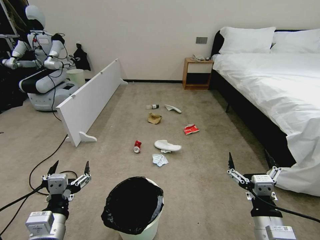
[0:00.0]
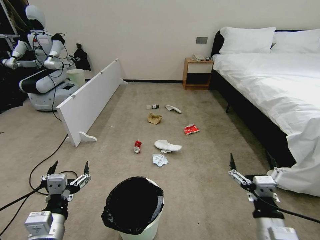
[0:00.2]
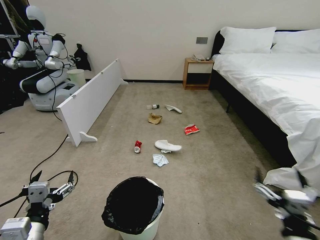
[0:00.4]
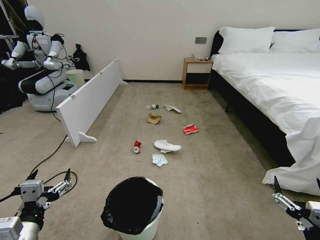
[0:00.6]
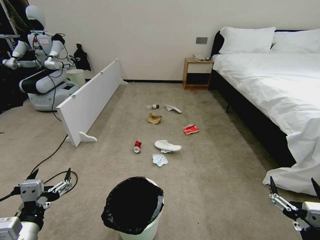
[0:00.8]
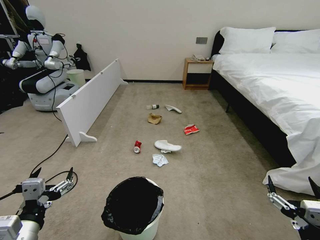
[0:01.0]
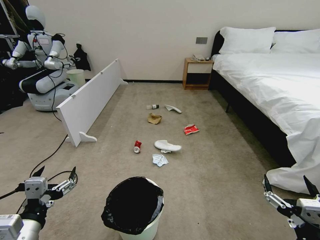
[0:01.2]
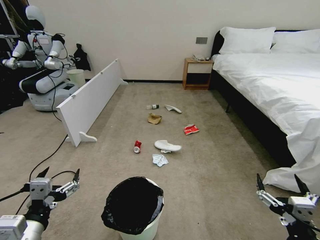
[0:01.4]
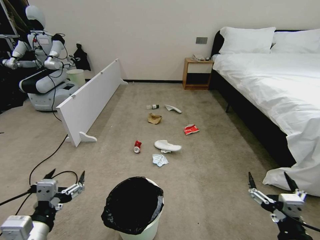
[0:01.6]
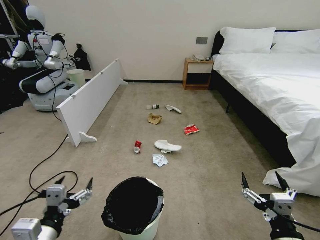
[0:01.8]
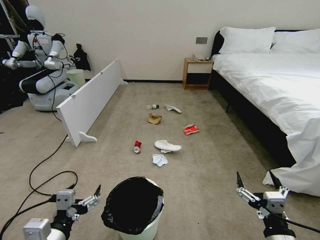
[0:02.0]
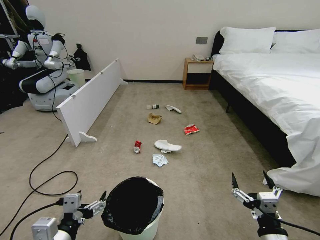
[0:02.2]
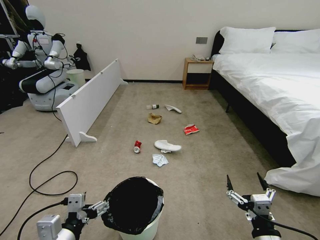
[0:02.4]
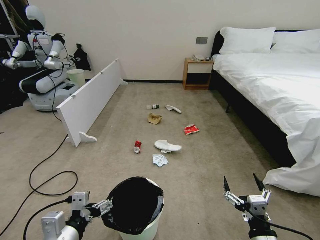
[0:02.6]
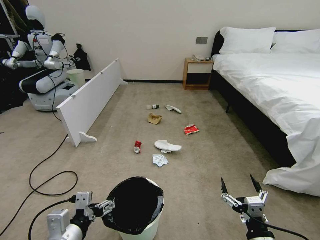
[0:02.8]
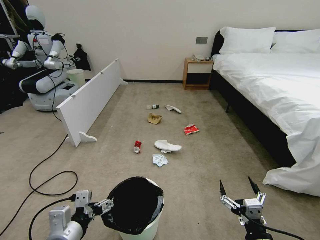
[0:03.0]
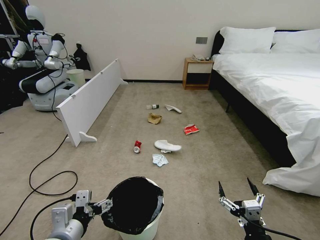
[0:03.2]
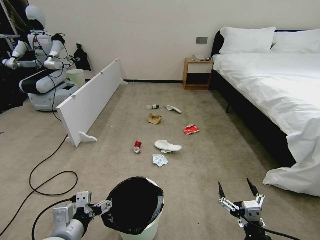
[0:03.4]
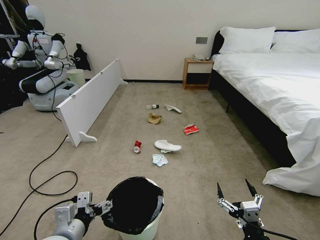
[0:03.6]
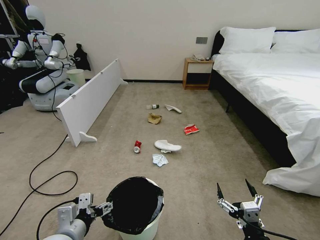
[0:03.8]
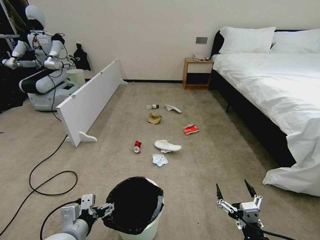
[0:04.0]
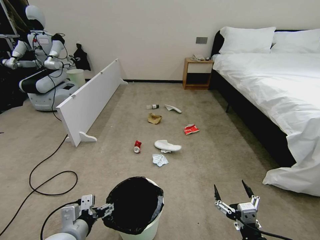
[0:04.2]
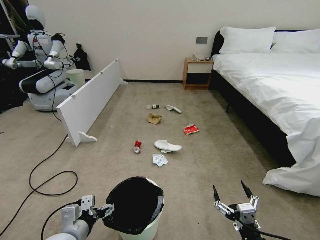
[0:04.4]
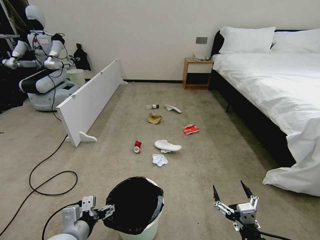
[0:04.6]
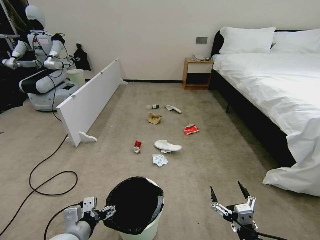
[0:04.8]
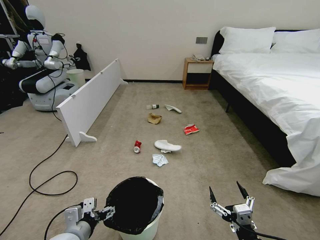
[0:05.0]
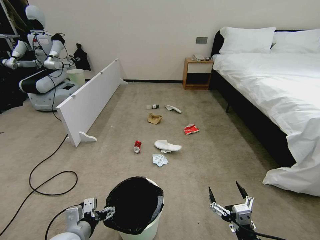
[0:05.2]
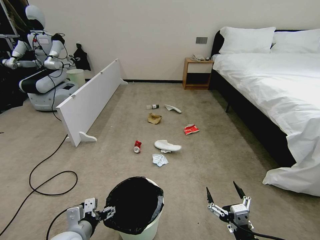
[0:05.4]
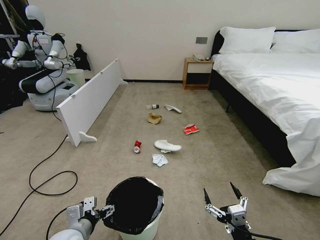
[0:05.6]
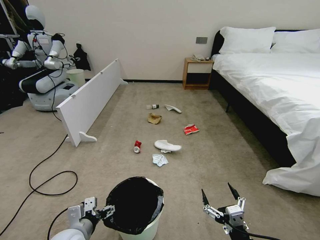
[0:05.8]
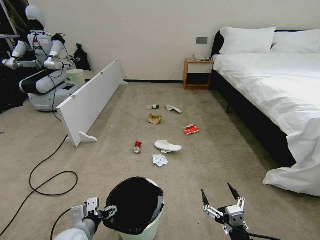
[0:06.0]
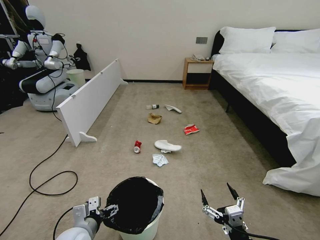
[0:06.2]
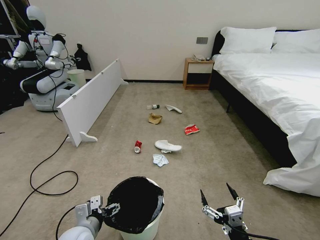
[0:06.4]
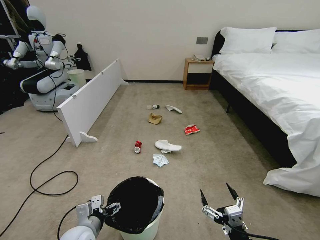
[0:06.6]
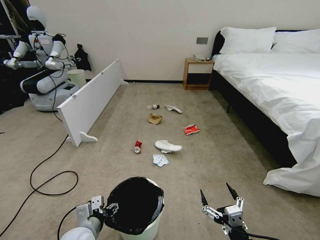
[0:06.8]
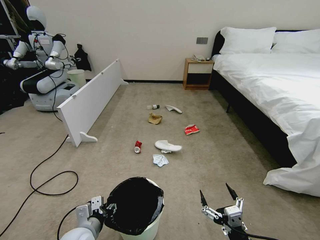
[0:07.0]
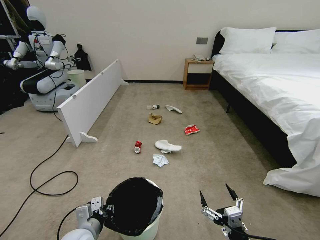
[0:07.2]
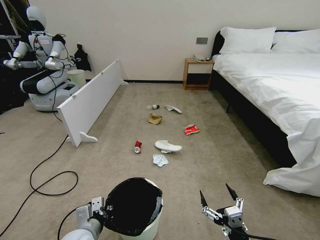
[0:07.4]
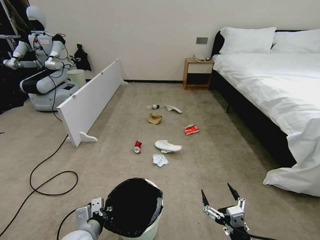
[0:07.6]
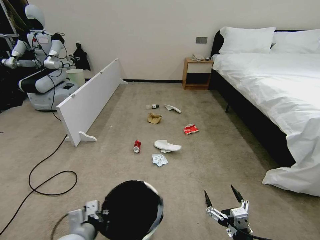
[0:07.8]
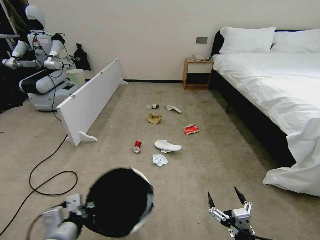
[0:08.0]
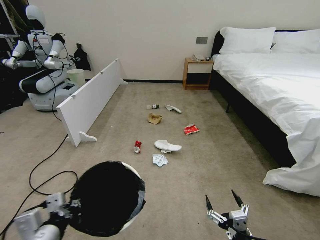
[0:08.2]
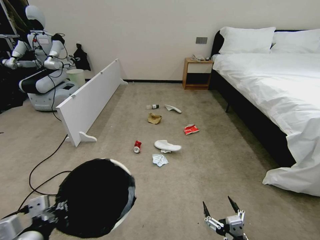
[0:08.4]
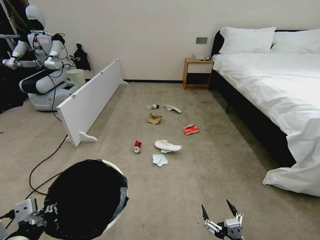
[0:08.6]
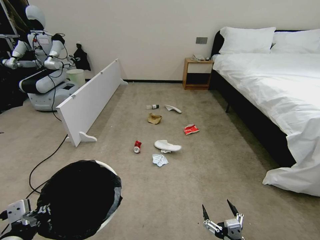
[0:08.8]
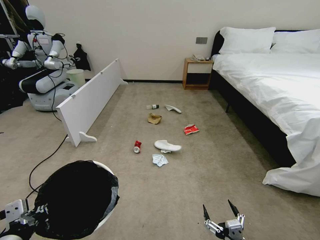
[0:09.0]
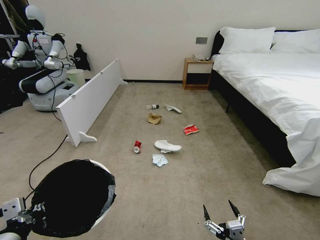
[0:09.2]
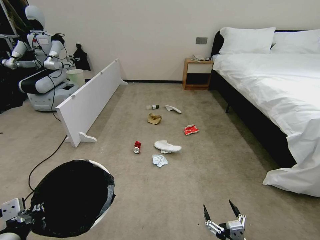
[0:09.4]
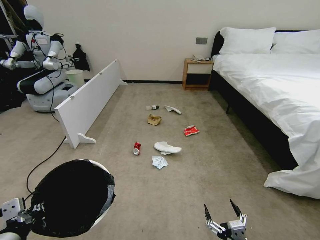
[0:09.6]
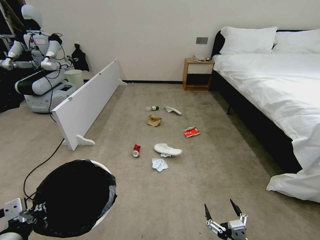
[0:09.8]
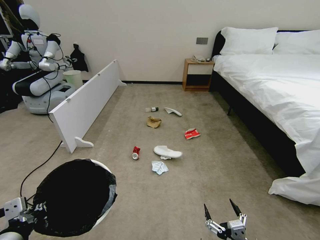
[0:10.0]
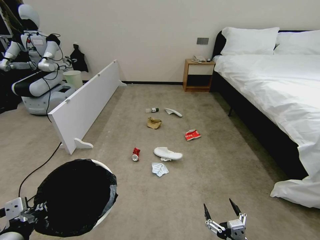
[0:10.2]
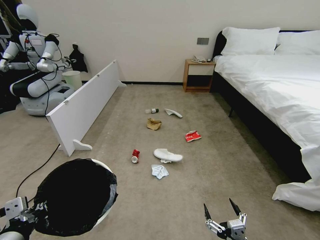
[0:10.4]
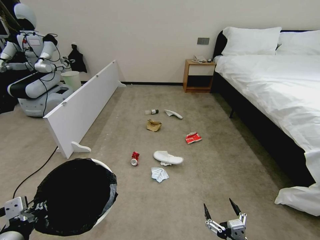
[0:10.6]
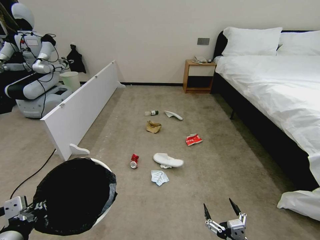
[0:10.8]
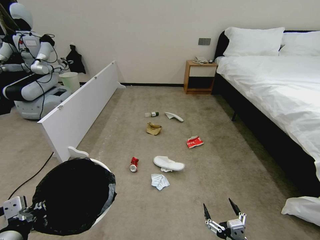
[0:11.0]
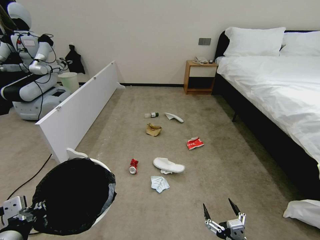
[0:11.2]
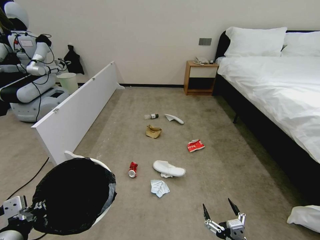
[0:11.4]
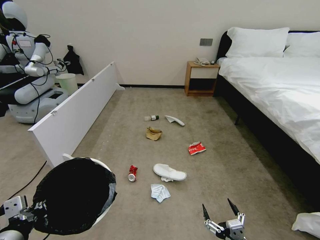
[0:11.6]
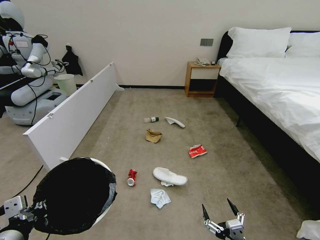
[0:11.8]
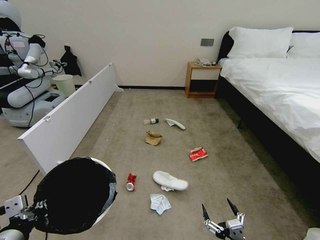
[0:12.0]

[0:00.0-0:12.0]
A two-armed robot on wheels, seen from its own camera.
Task of the whole recording: Pick up the trash bin, then pick up the garbage from the floor and place it into the trash bin.
0:01.6 to 0:03.0: The right gripper heads downward, covering approximately 5 cm; the left gripper moves to the right, roughly 5 cm.
0:03.0 to 0:04.4: The left gripper goes some 5 cm downward.
0:04.4 to 0:06.0: The grippers stay close to where they were, moving slightly.
0:06.0 to 0:07.6: The left gripper closes up.
0:07.6 to 0:09.0: The left gripper shifts some 20 cm upward, backward and to the left.
0:09.0 to 0:10.4: The two grippers keep their place.

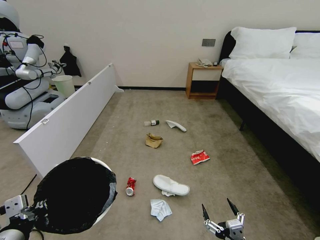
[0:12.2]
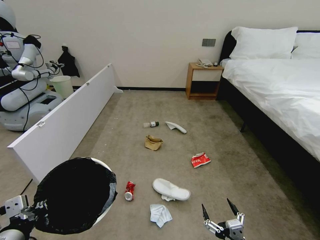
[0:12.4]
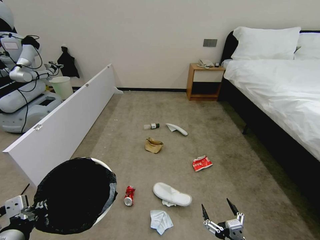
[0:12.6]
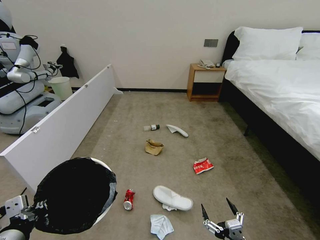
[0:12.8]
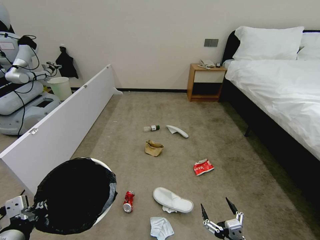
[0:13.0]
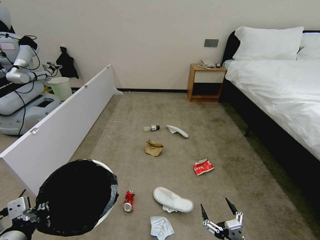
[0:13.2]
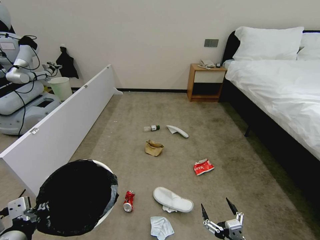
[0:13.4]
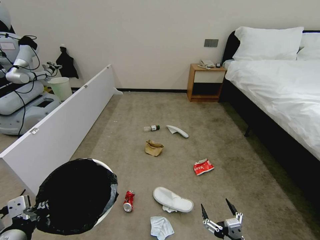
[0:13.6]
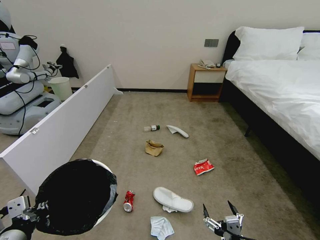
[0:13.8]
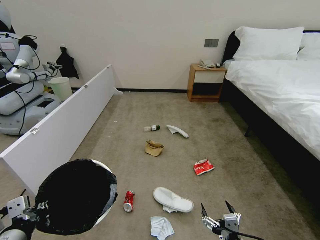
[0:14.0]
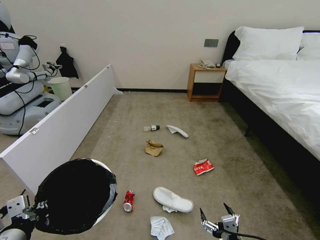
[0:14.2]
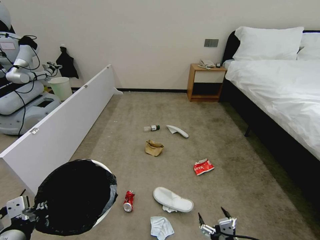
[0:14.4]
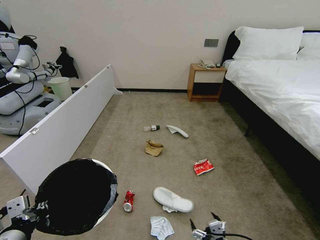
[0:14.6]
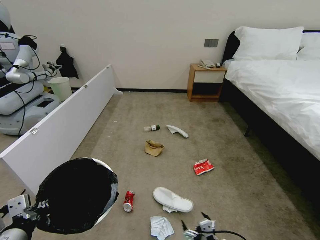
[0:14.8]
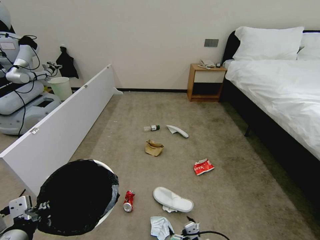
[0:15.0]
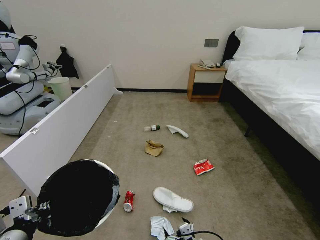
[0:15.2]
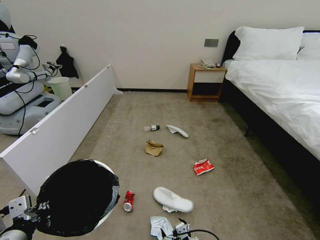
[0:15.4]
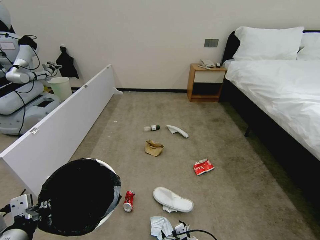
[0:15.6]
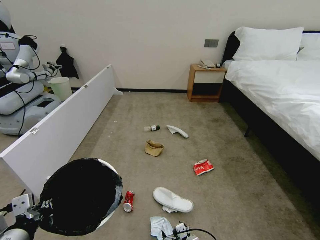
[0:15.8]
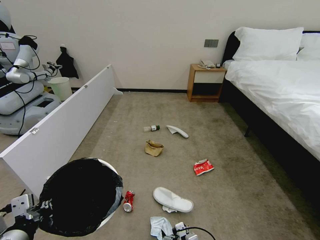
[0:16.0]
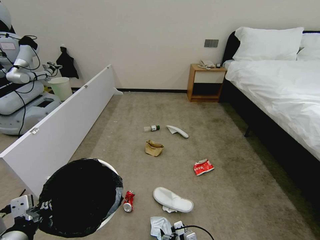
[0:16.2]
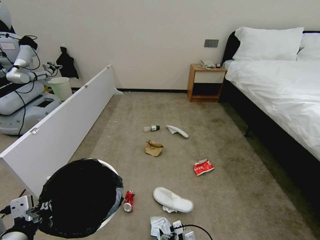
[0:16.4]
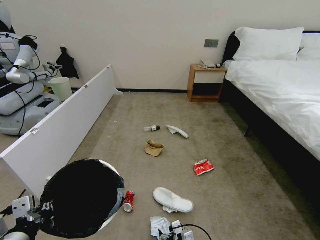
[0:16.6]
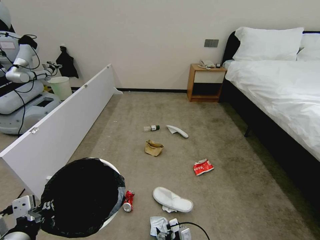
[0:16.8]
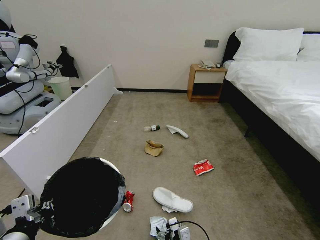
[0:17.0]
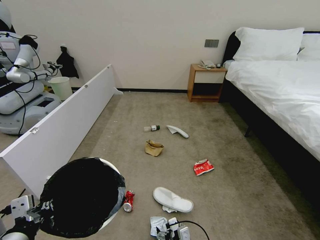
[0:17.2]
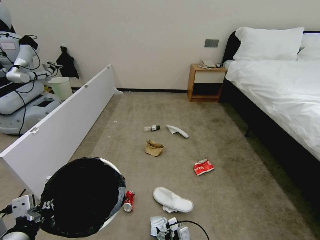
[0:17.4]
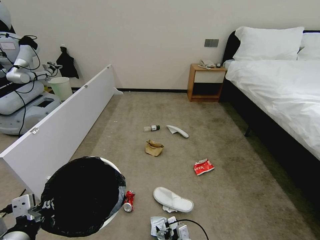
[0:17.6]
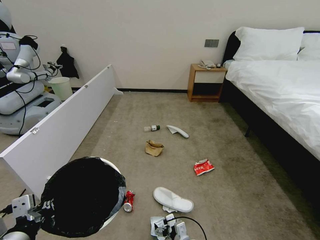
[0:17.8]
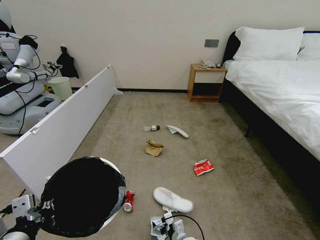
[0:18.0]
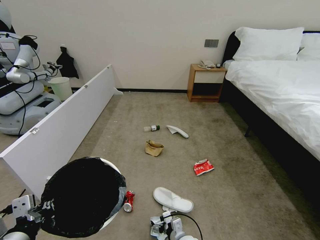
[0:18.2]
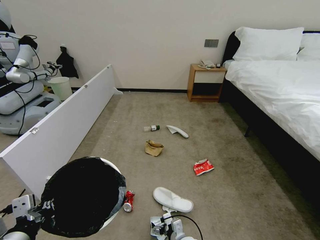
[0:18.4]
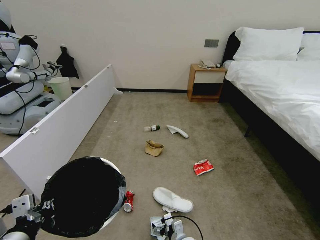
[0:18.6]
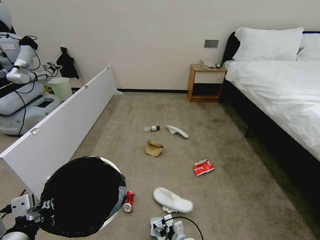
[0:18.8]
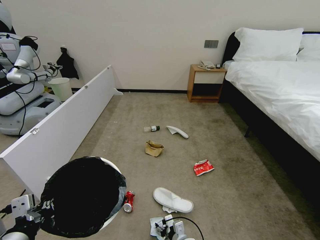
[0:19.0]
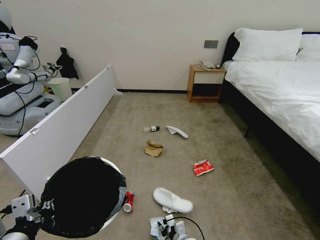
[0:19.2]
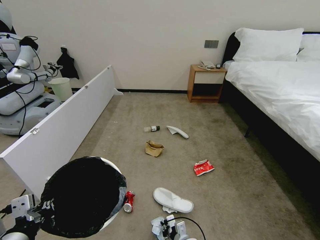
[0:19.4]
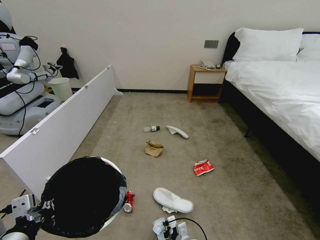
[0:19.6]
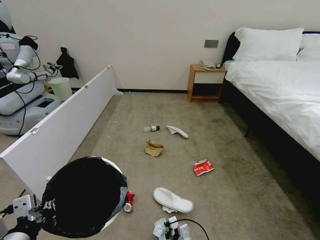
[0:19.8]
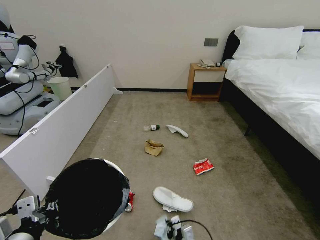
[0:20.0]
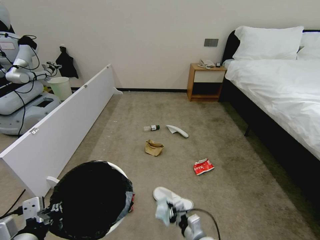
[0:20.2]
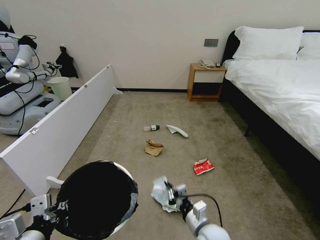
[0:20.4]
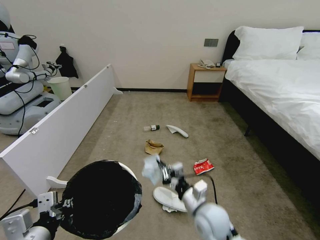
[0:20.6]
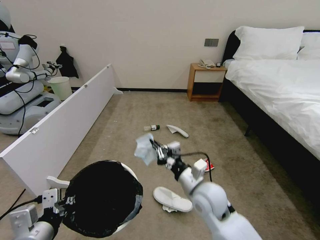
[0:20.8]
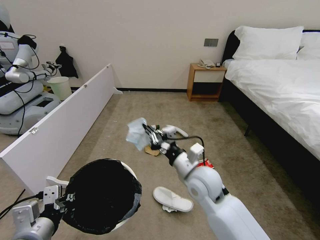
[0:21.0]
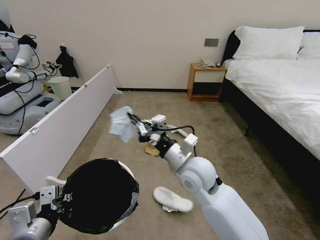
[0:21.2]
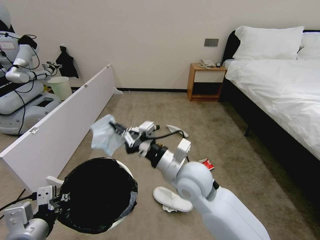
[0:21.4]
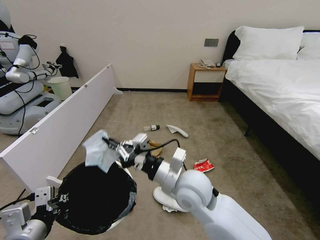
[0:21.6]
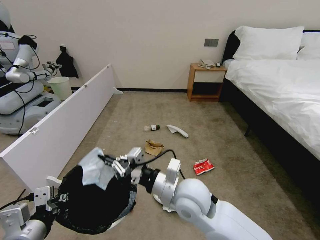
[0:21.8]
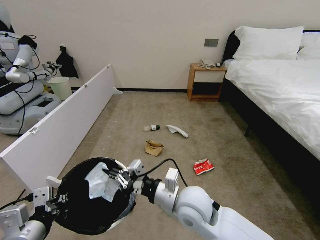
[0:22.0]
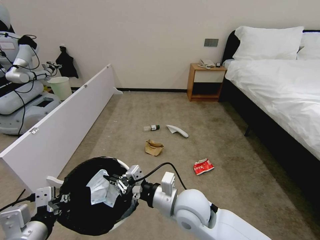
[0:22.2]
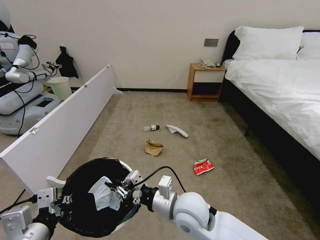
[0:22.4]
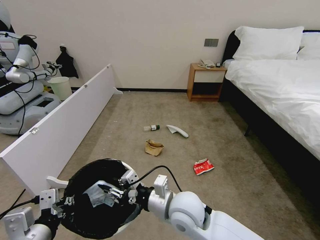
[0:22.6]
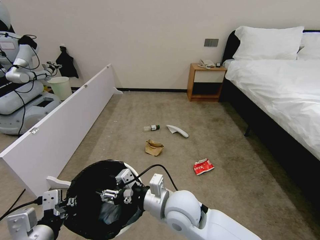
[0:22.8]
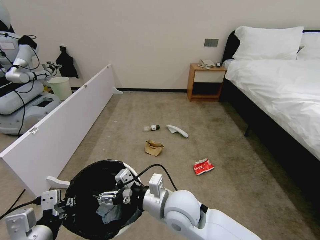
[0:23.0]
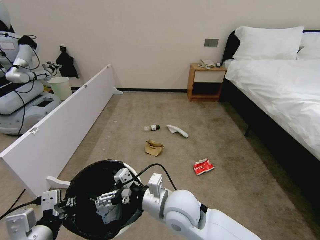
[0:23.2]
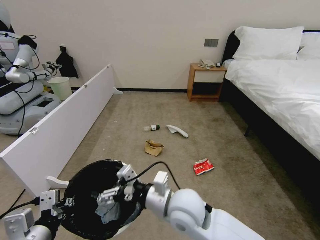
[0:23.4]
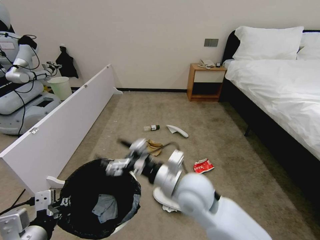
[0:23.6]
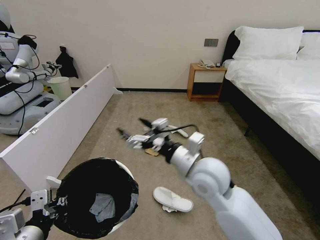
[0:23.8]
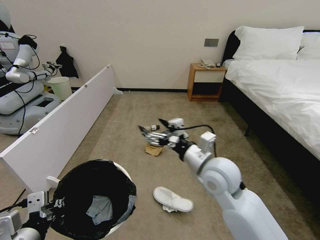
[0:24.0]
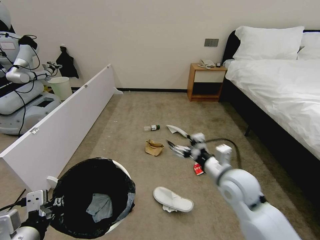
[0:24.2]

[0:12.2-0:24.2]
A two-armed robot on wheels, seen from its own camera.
Task of the whole recording: Pick up the trash bin, then pick up the garbage from the floor and place it into the trash bin.
0:12.2 to 0:13.8: The grippers move only a little.
0:13.8 to 0:15.2: The right gripper heads downward, to the left and forward, covering some 10 cm.
0:15.2 to 0:16.6: The right gripper is displaced downward and forward by some 10 cm.
0:16.6 to 0:18.2: The right gripper shifts approximately 5 cm forward.
0:18.2 to 0:19.8: The right gripper closes its fingers.
0:19.8 to 0:21.2: The right gripper travels upward by some 35 cm.
0:21.2 to 0:22.6: The right gripper is displaced backward and downward by approximately 10 cm.
0:22.6 to 0:24.2: The right gripper travels to the right, upward and forward by roughly 15 cm, and opens its fingers.
